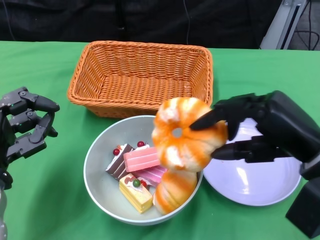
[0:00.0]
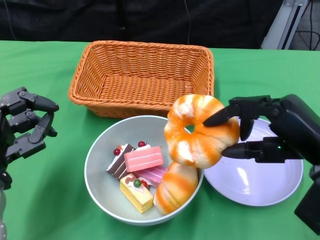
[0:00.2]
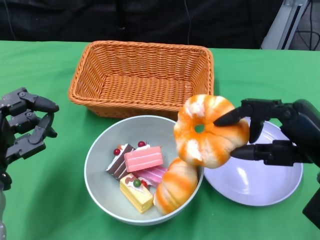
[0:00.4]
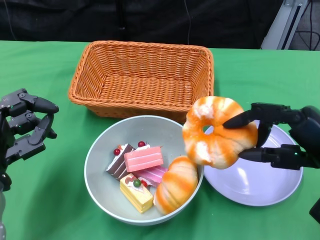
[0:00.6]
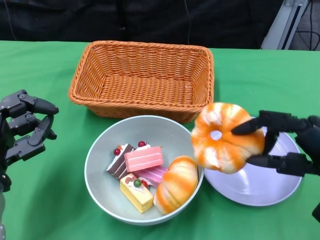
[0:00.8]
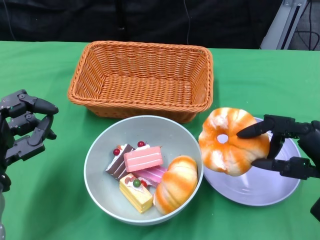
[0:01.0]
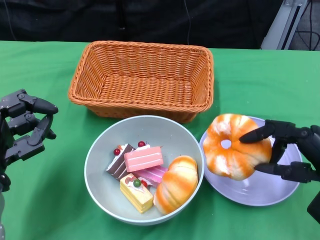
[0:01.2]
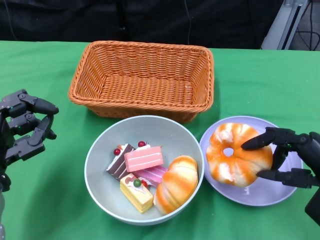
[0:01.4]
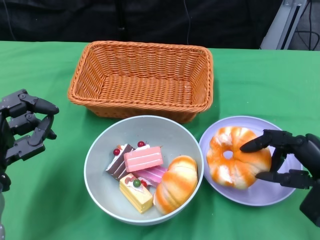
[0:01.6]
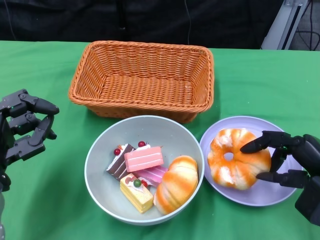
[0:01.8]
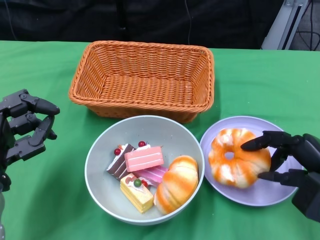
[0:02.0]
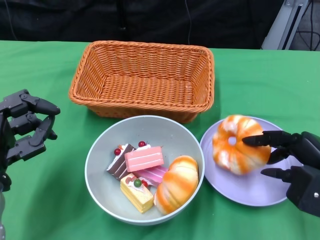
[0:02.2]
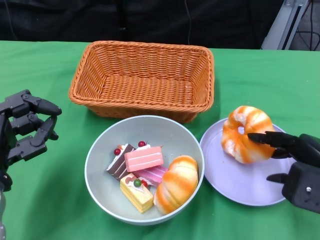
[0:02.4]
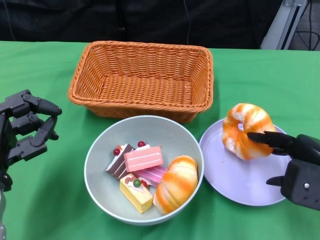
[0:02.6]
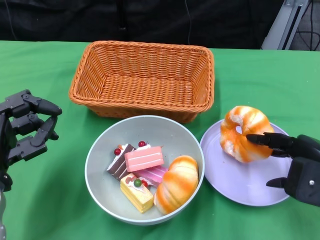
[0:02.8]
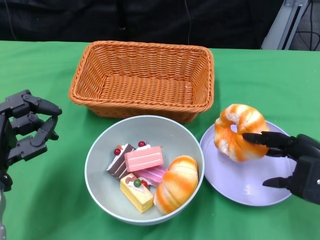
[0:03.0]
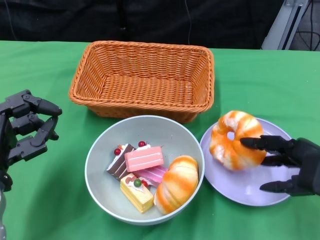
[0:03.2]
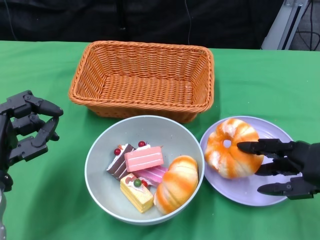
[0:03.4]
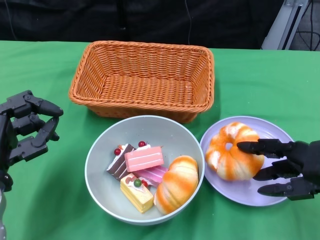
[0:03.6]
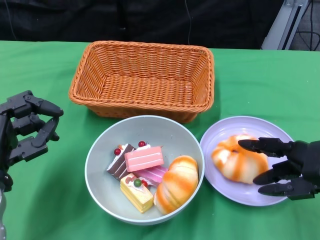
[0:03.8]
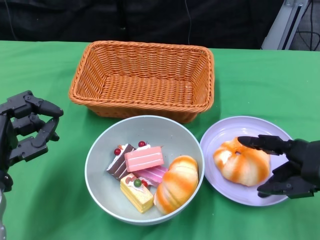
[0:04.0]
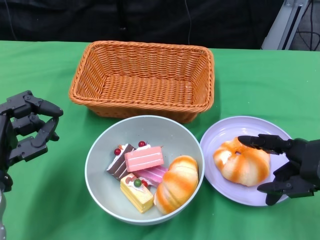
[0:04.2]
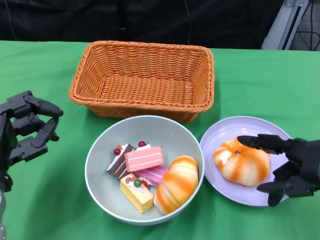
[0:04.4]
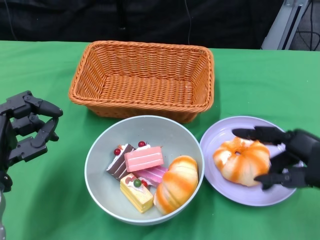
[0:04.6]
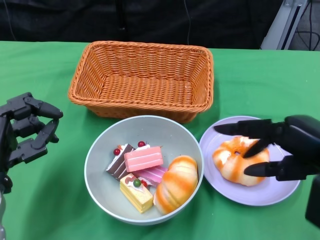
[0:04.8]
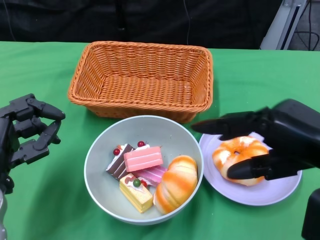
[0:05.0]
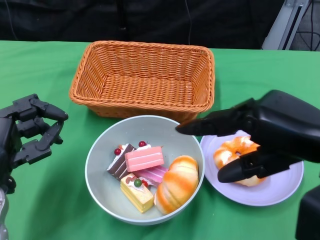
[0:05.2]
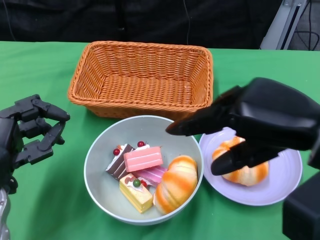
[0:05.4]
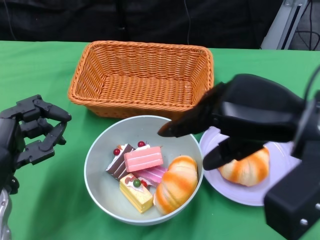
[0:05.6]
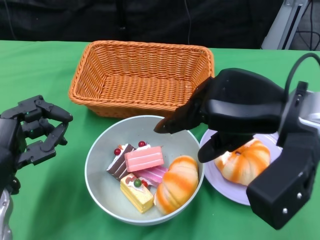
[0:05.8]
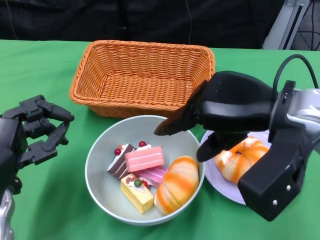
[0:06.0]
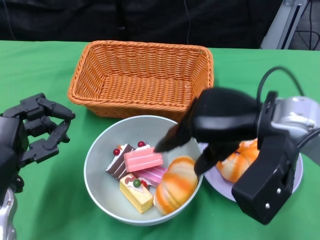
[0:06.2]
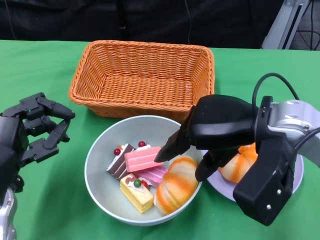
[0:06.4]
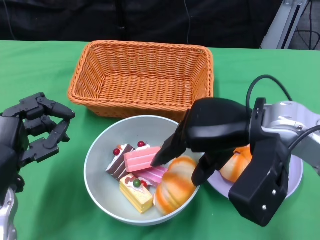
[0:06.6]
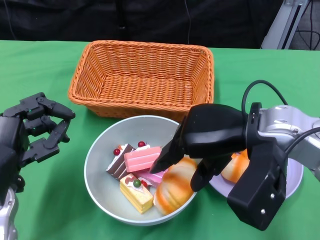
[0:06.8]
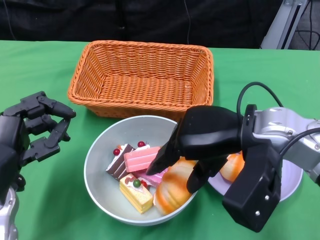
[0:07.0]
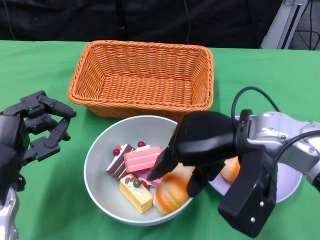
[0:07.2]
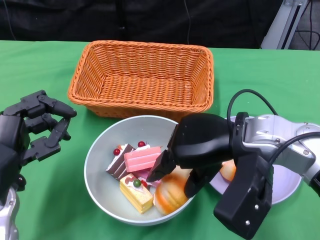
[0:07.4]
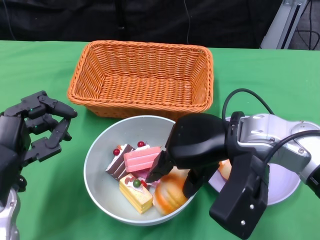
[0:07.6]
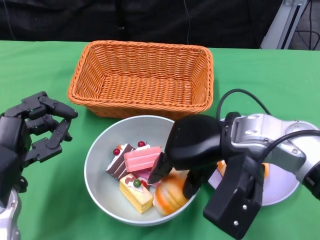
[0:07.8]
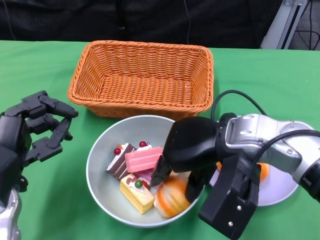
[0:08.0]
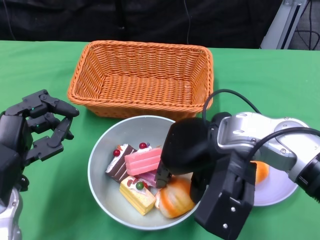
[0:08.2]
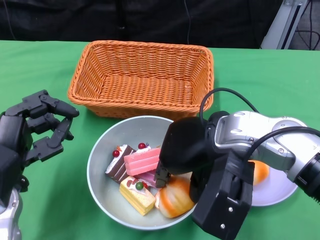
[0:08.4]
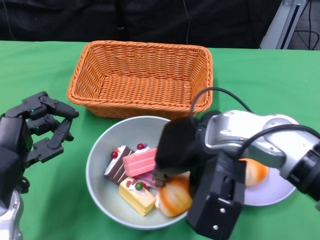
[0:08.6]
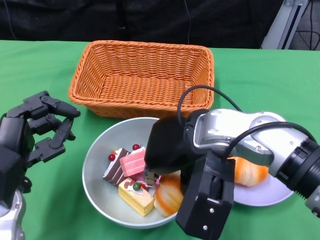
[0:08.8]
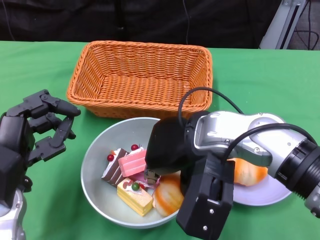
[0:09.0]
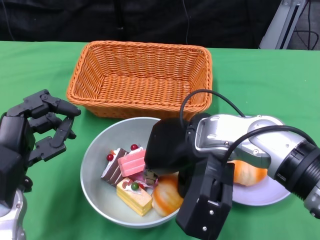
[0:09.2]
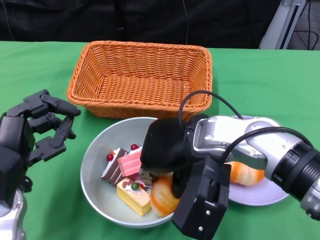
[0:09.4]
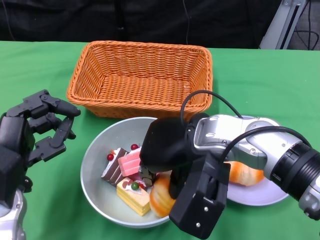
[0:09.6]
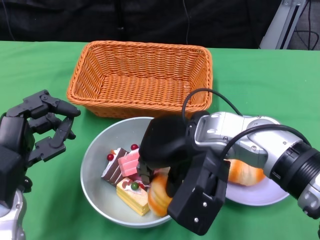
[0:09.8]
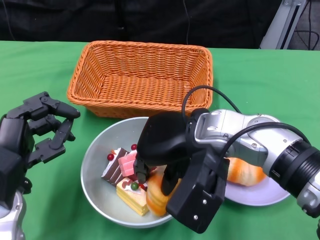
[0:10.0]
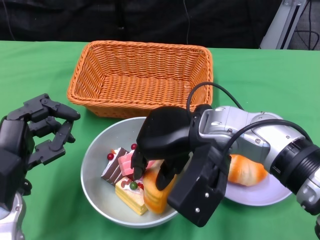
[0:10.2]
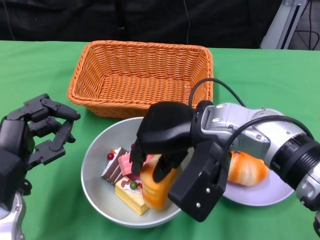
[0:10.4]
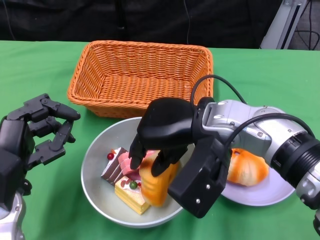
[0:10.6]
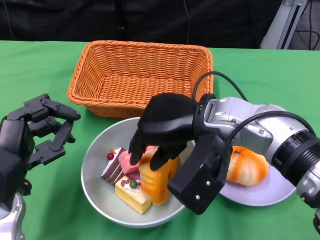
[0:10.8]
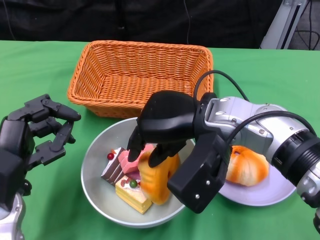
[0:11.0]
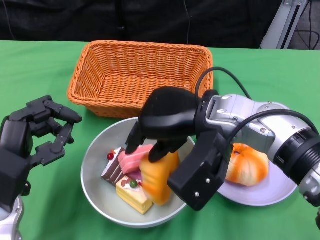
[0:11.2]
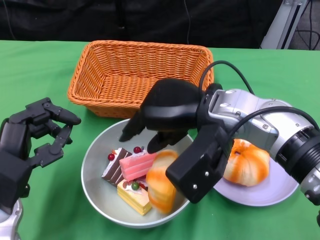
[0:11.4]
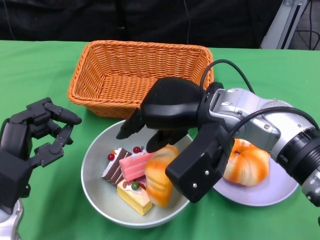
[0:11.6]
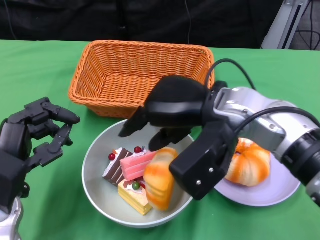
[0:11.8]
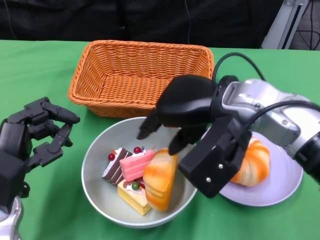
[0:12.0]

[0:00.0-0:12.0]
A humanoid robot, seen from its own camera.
0:00.0 to 0:01.6: The right hand travels downward and to the right by about 10 cm.
0:03.0 to 0:04.4: The hands stay close to where they were, moving slightly.
0:04.4 to 0:06.0: The right hand goes some 15 cm to the left and upward.
0:06.0 to 0:07.6: The right hand goes some 5 cm downward.
0:07.6 to 0:09.0: The right hand heads to the left, covering some 5 cm.

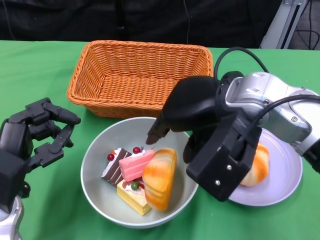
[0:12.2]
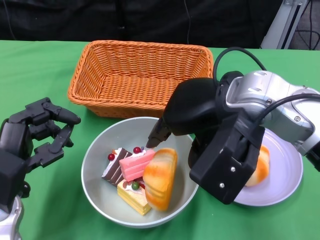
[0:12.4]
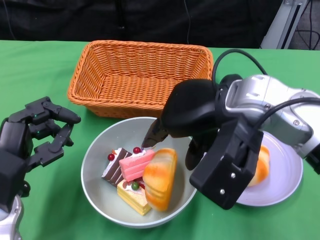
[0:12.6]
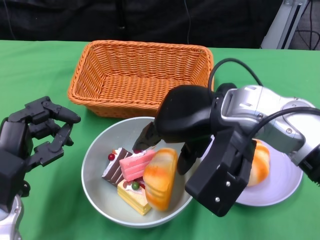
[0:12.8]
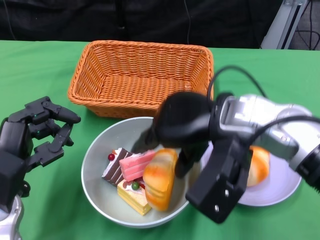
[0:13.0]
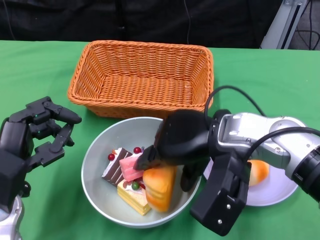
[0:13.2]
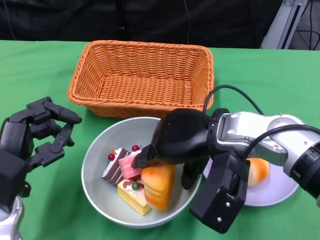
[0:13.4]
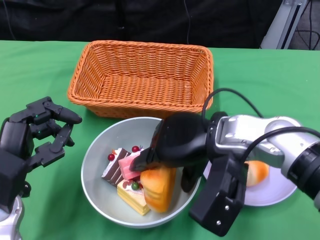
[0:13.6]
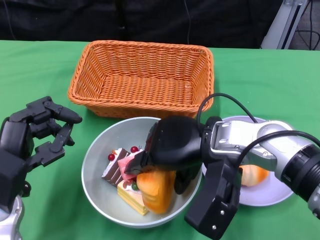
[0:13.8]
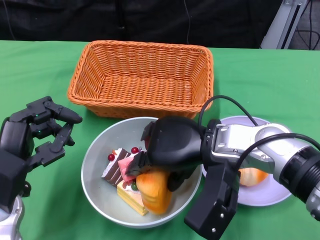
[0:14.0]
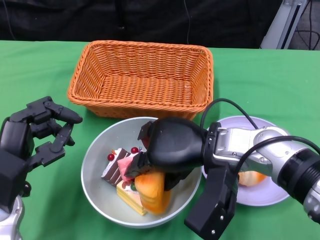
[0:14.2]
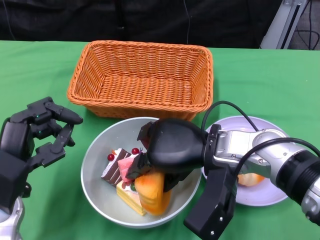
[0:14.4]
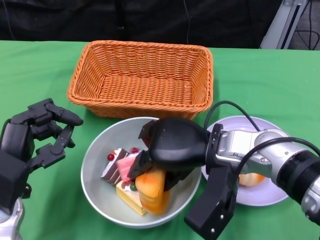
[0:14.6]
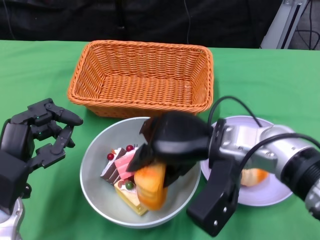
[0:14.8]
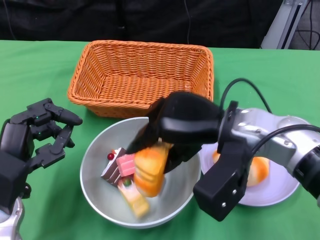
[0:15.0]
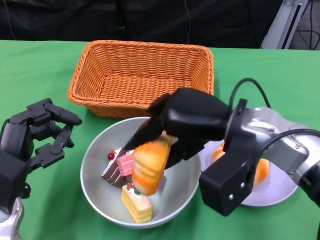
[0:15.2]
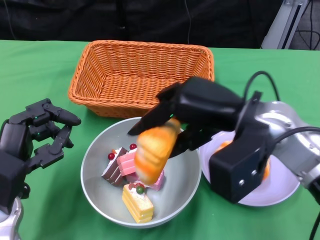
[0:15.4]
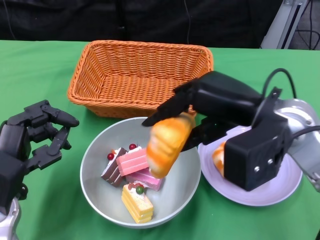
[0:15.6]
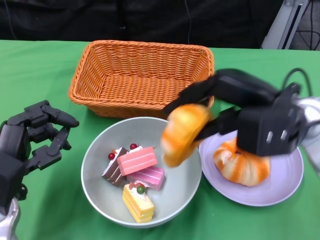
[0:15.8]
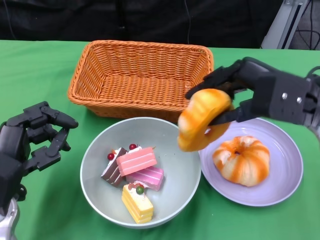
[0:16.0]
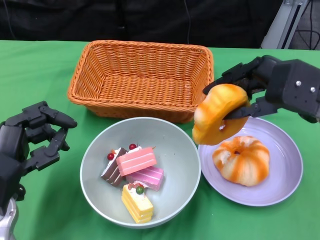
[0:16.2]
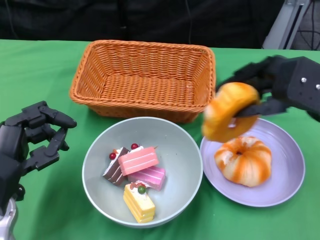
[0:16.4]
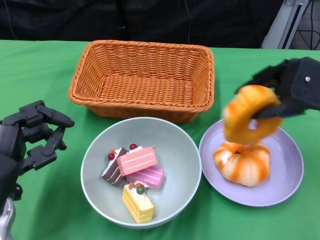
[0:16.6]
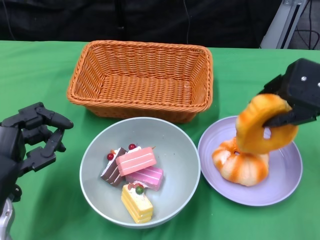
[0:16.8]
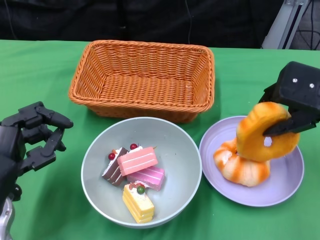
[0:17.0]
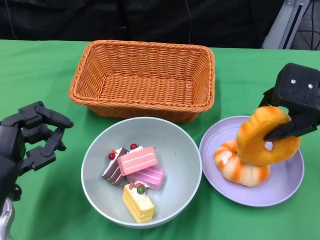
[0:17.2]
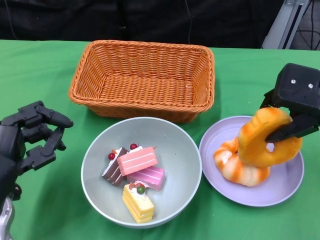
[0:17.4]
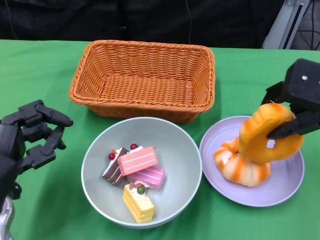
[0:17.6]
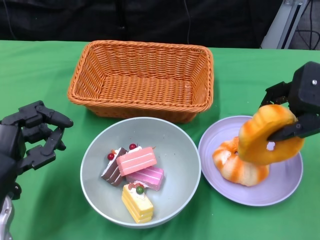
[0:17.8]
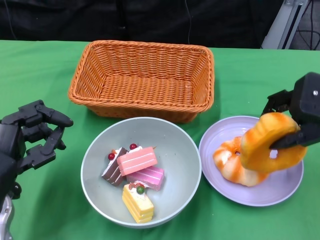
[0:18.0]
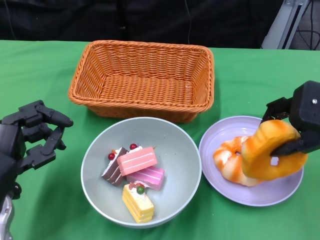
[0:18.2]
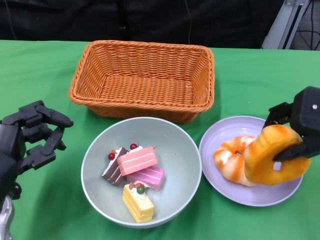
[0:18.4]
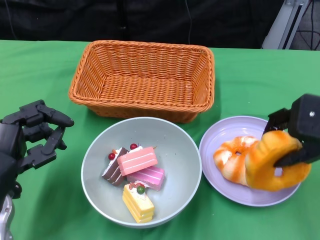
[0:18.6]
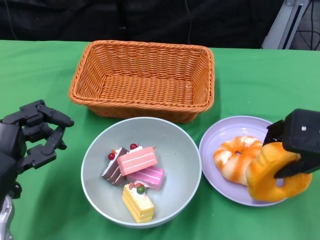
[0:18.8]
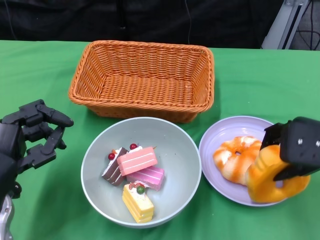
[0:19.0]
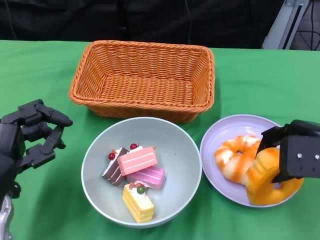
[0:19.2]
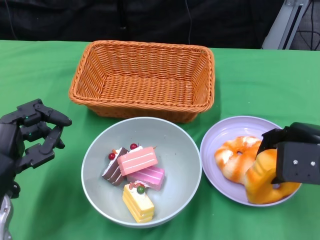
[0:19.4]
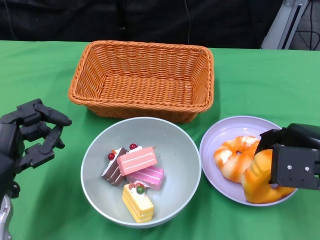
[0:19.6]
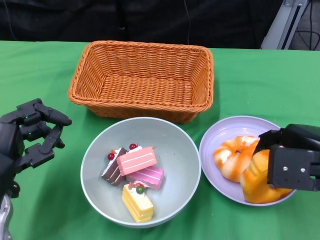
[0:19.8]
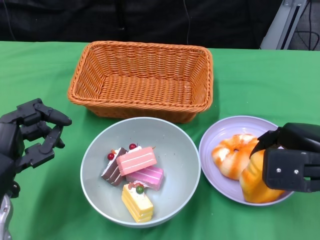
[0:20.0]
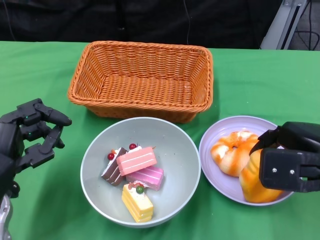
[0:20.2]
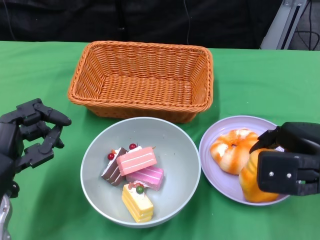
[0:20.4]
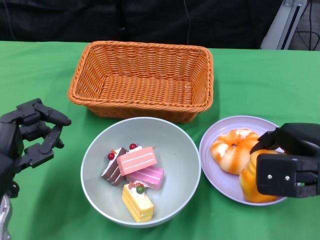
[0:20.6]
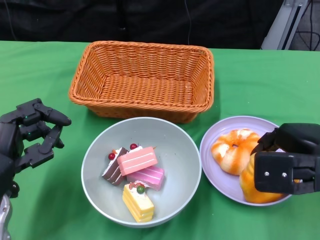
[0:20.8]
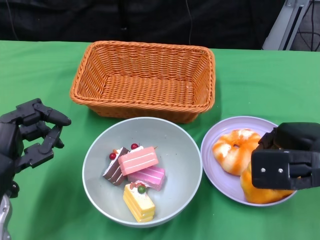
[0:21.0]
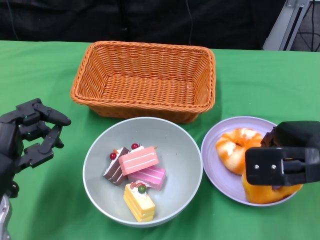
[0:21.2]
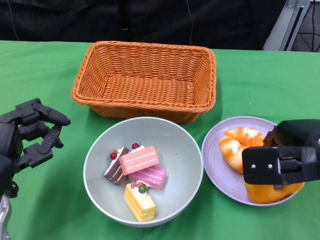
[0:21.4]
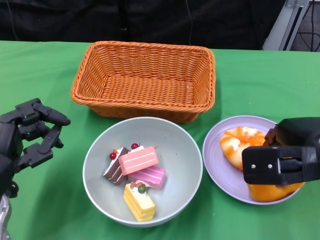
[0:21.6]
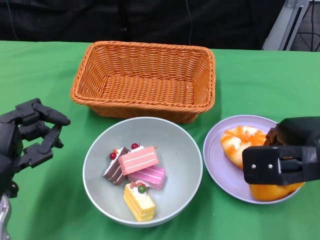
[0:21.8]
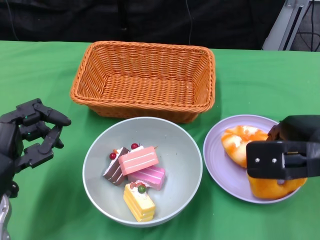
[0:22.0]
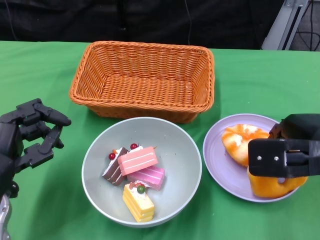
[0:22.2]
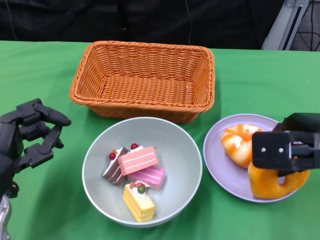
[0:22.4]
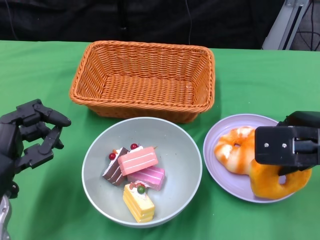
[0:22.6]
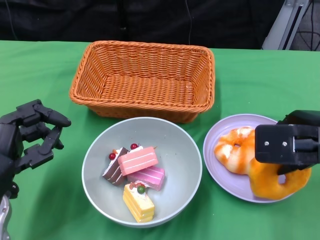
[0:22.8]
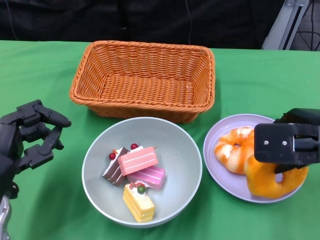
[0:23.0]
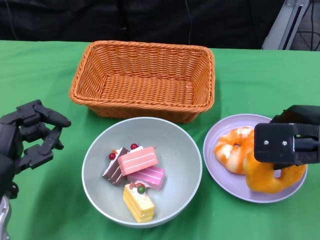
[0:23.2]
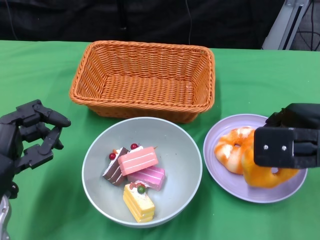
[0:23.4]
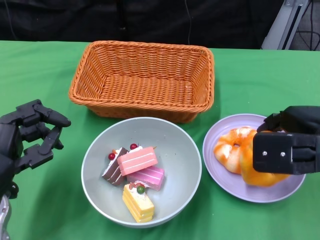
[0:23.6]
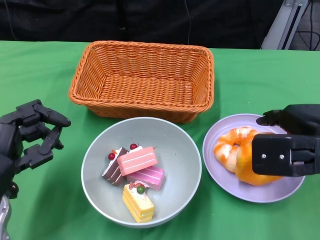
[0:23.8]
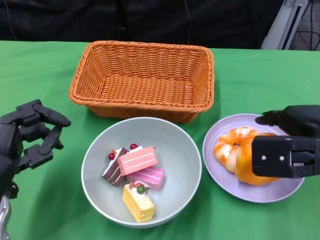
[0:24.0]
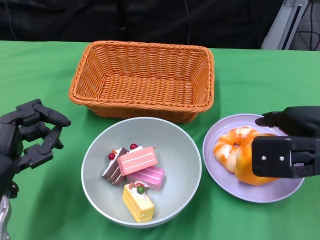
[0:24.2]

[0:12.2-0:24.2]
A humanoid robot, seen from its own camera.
0:12.2 to 0:13.8: The right hand goes roughly 5 cm downward.
0:15.2 to 0:16.6: The right hand moves to the right, approximately 15 cm.
0:16.6 to 0:18.2: The hands stay close to where they were, moving slightly.
0:18.2 to 0:19.8: The right hand moves downward, some 5 cm.
0:19.8 to 0:21.2: The hands make only small movements.
0:21.2 to 0:24.2: The hands make only small movements.
